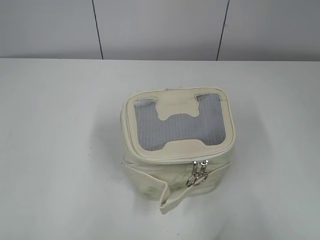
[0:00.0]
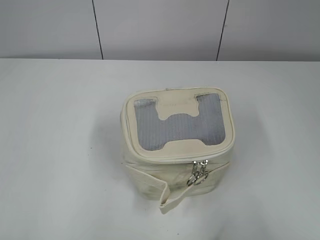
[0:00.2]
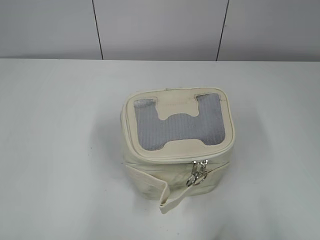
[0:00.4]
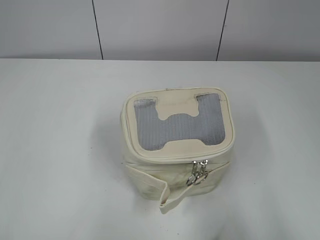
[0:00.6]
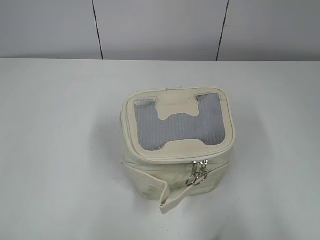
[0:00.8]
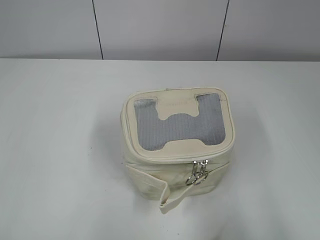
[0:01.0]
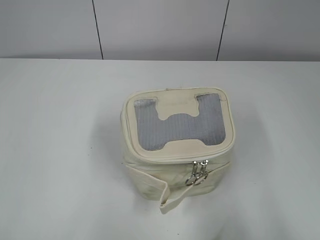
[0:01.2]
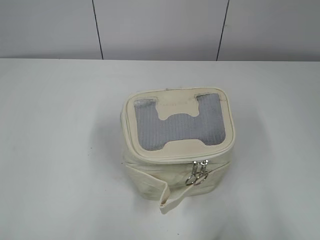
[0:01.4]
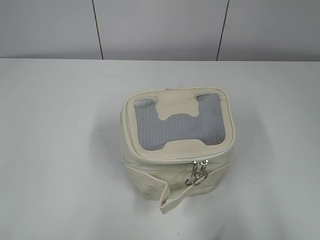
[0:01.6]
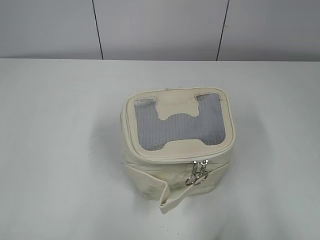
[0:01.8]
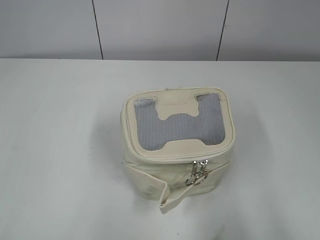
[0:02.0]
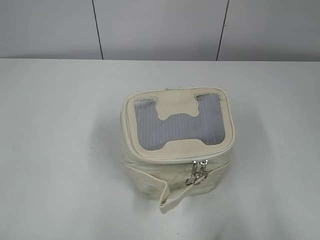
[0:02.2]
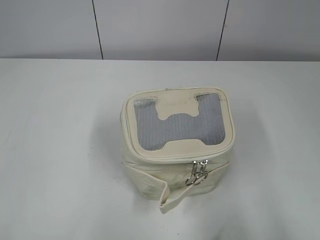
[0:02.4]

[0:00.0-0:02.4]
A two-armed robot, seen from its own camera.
0:01.2 to 0:02.4: Neither gripper changes place.

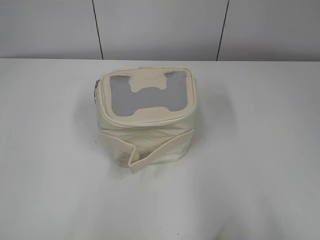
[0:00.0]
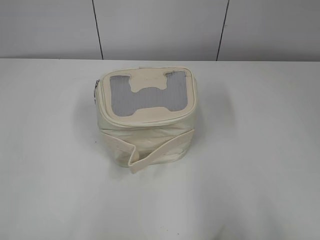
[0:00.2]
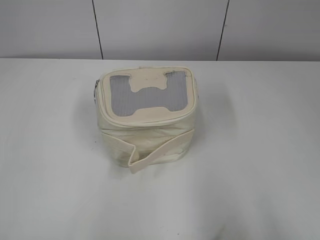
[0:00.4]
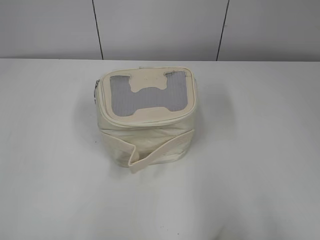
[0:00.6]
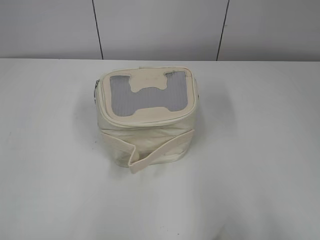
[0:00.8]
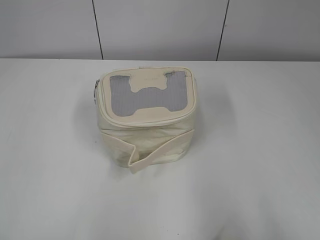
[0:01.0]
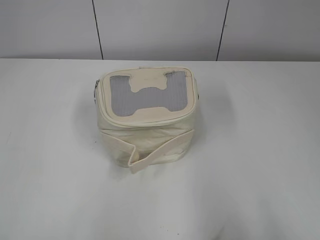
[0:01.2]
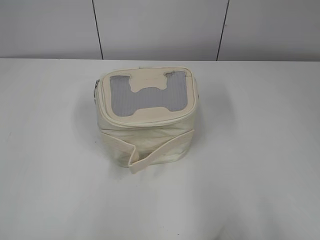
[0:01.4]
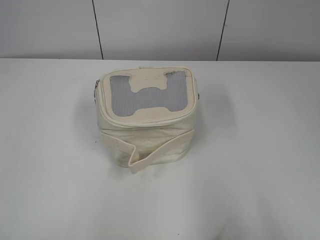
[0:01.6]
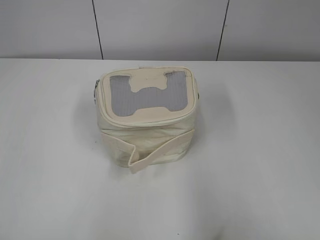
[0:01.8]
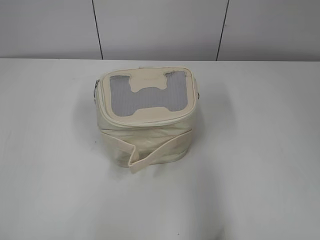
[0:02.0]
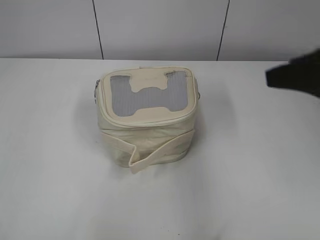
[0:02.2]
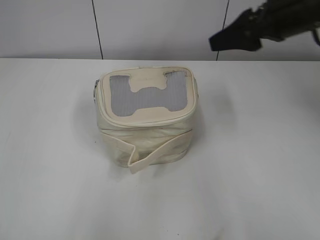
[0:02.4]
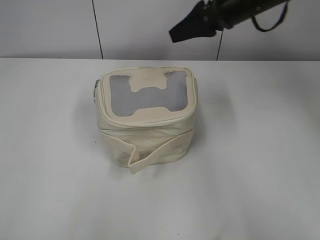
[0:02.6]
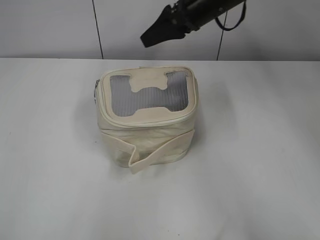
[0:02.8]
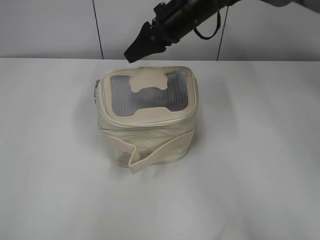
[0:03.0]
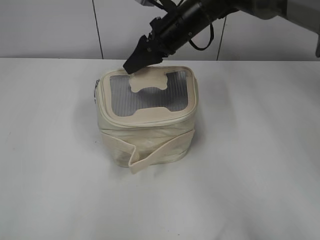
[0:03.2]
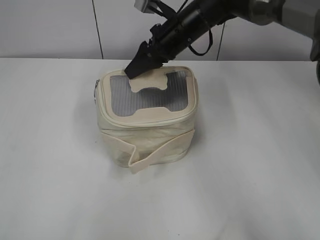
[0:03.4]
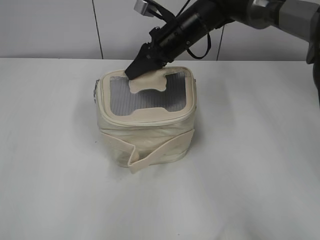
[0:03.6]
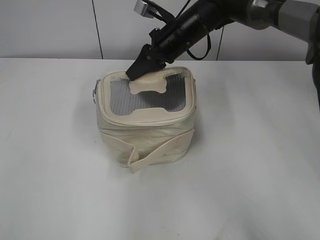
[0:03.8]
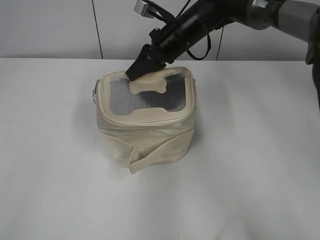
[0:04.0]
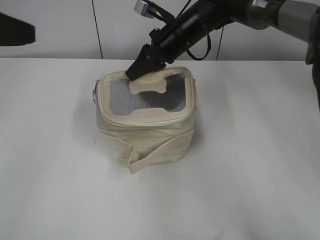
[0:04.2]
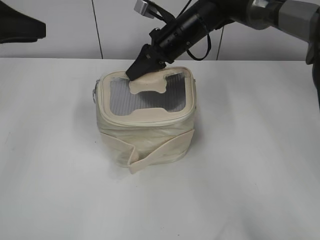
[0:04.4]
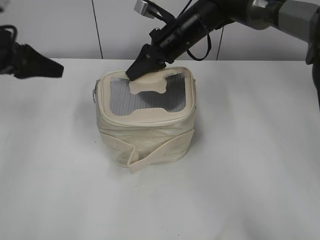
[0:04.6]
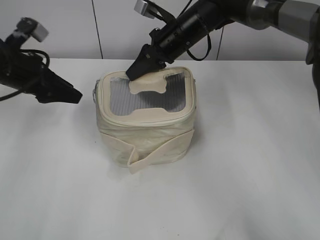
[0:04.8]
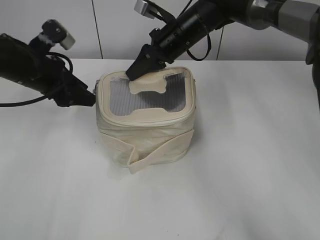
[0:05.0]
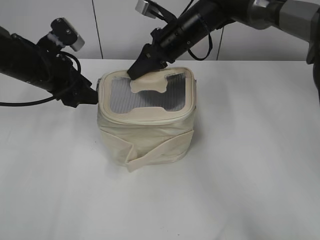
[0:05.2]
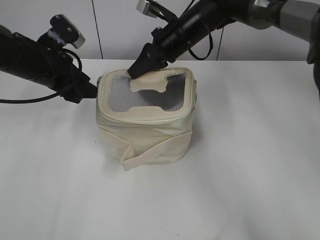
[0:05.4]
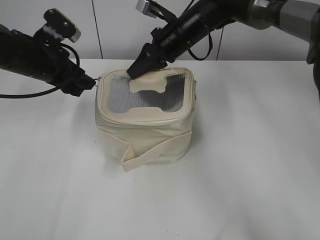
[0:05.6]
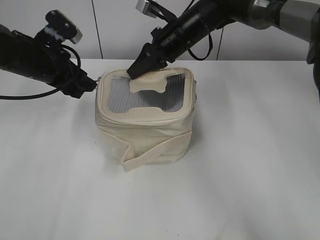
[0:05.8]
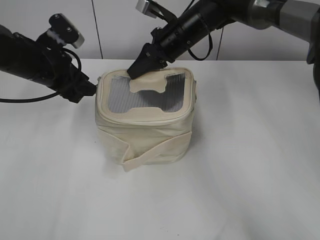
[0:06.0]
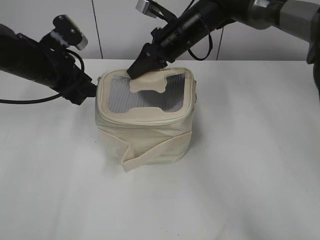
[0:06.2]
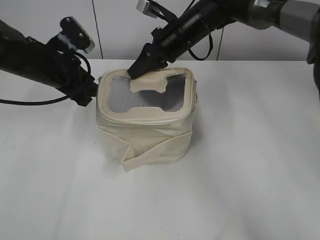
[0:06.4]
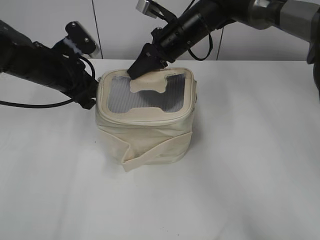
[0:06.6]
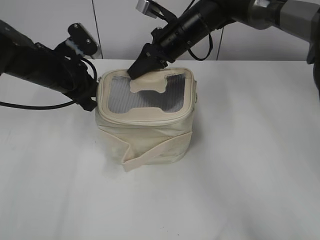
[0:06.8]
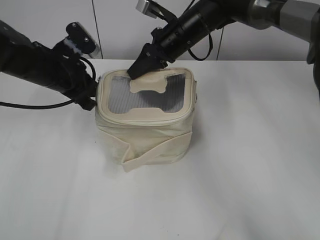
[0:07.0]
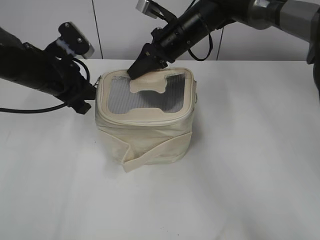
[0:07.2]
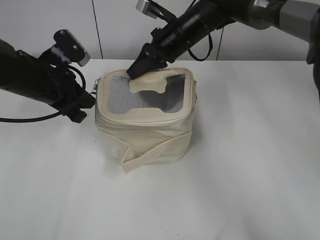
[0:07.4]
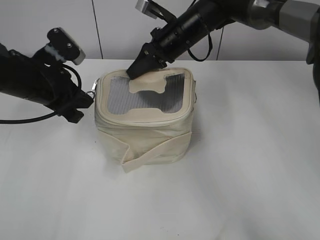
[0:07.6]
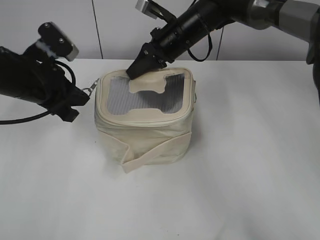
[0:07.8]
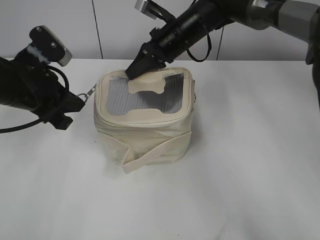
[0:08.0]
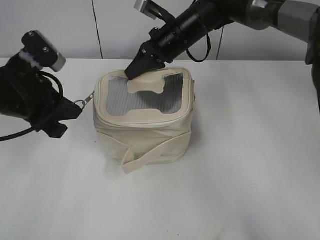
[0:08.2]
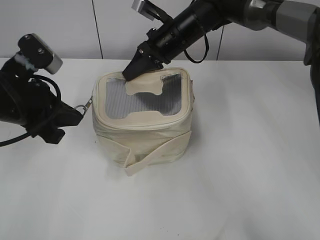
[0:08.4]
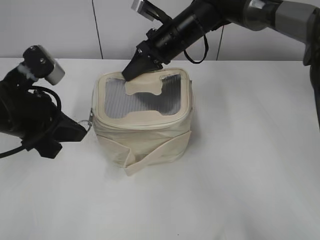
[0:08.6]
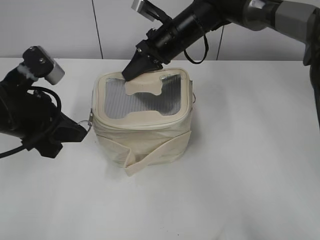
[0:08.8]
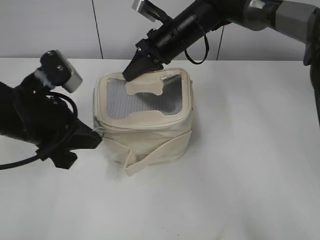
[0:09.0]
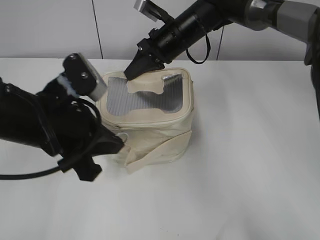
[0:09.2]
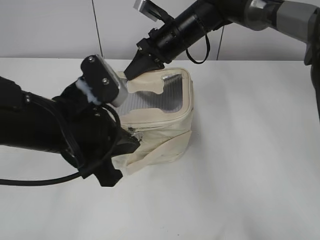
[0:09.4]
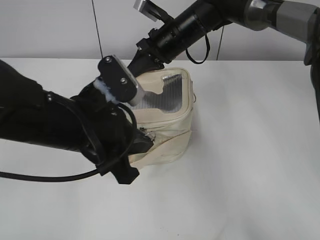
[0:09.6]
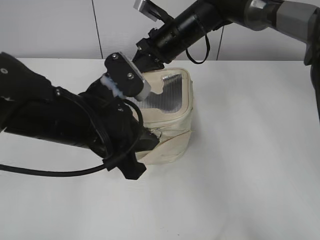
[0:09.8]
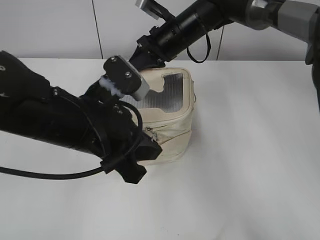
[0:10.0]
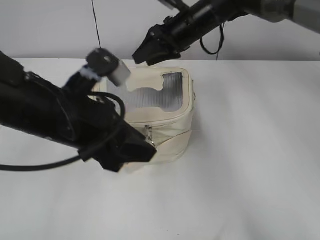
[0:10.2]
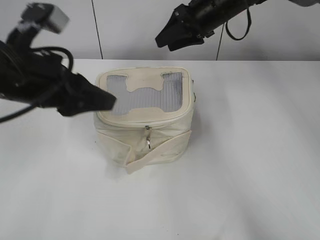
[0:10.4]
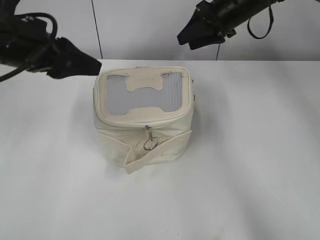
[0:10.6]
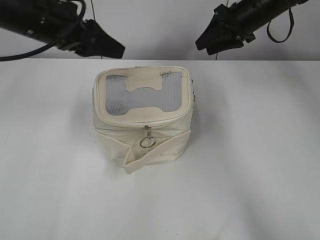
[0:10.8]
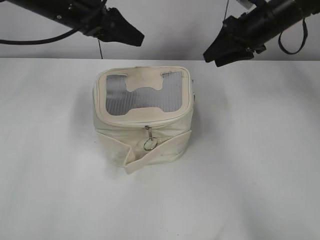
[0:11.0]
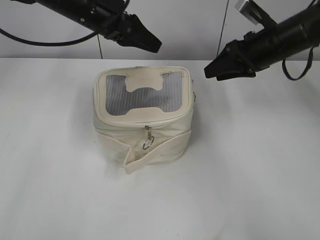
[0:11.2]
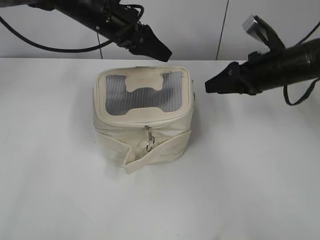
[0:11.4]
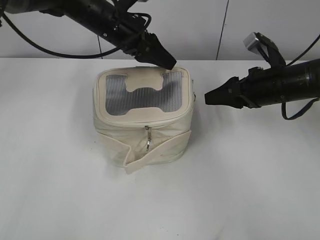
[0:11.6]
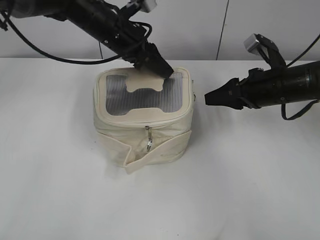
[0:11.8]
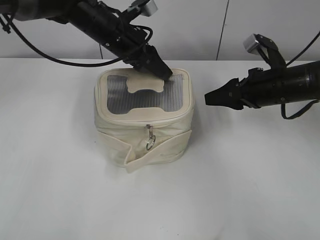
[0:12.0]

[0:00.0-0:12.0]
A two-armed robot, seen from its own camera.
Step, 0:00.0 to 0:10.0: Zip up the bag with your left hand.
0:01.6 to 0:03.0: The right gripper is displaced forward and to the left by some 50 cm.
0:03.0 to 0:04.4: The right gripper is displaced downward by roughly 5 cm, and closes, while the left gripper heads forward, covering approximately 30 cm.
0:04.4 to 0:06.0: The left gripper is displaced downward, to the right and forward by about 15 cm.
0:06.0 to 0:07.6: The left gripper closes.
0:07.6 to 0:09.0: The left gripper travels backward by roughly 10 cm.
0:09.0 to 0:10.4: The right gripper moves to the right, approximately 10 cm, and opens up. The left gripper travels upward by approximately 5 cm, moves approximately 10 cm to the right and comes back, and opens its fingers.
0:10.4 to 0:12.0: The left gripper goes some 20 cm forward and to the right, while the right gripper travels backward, to the right and downward by some 20 cm.

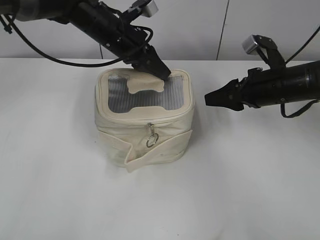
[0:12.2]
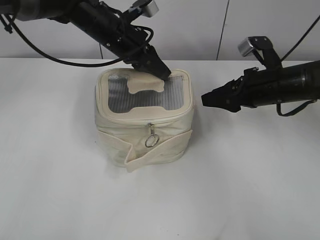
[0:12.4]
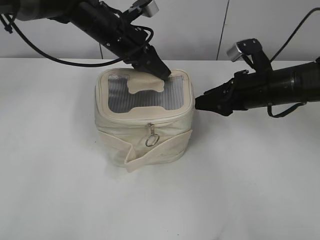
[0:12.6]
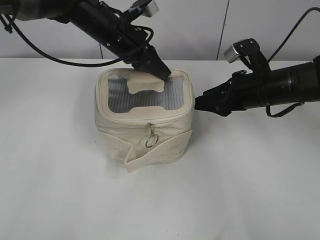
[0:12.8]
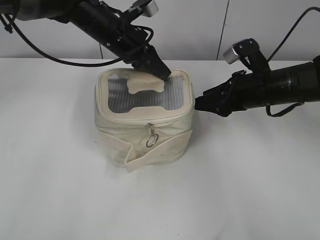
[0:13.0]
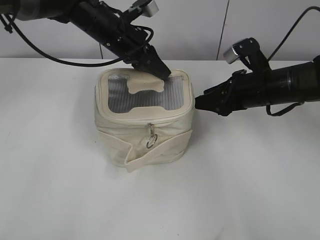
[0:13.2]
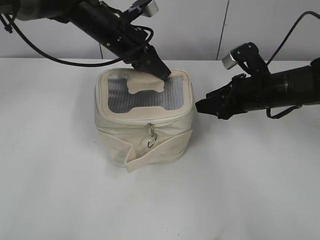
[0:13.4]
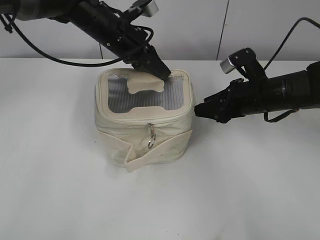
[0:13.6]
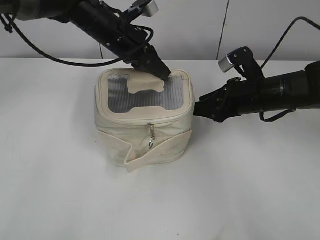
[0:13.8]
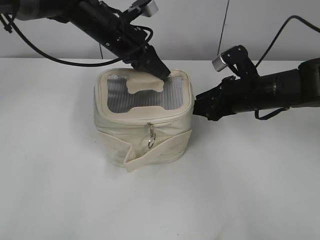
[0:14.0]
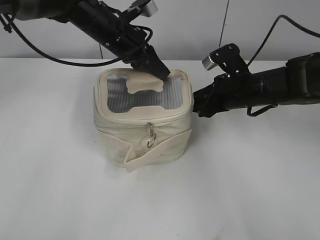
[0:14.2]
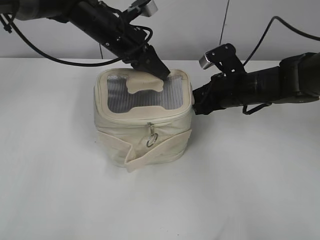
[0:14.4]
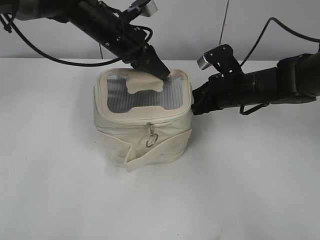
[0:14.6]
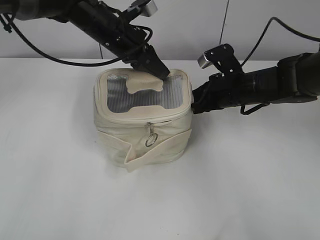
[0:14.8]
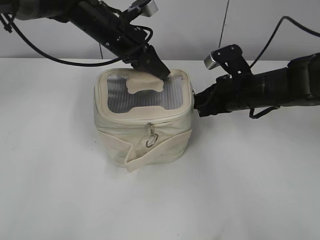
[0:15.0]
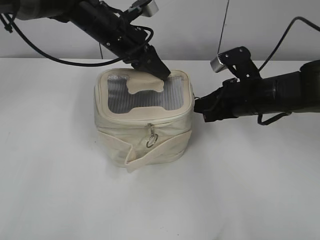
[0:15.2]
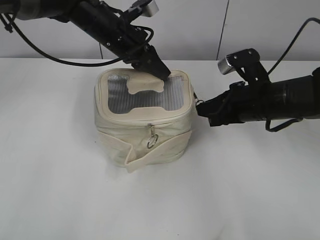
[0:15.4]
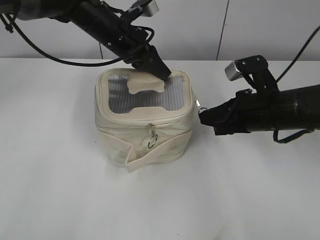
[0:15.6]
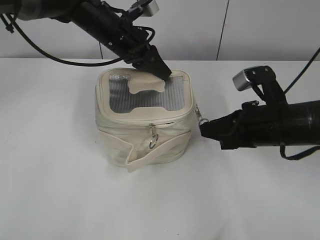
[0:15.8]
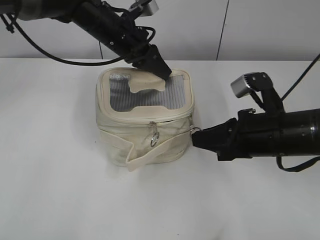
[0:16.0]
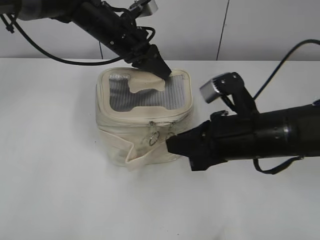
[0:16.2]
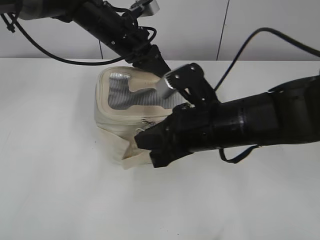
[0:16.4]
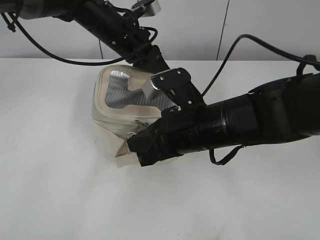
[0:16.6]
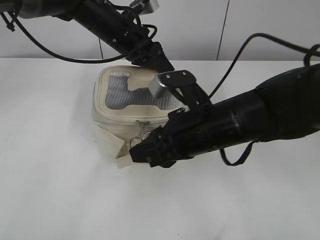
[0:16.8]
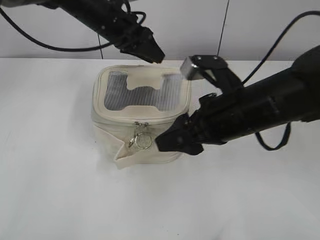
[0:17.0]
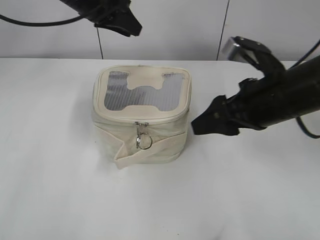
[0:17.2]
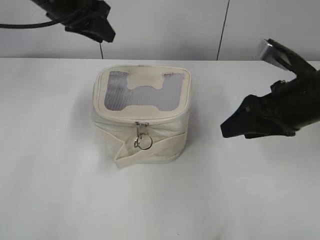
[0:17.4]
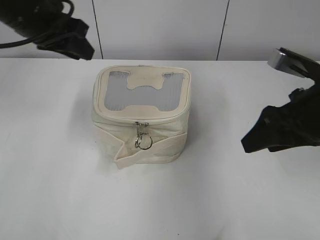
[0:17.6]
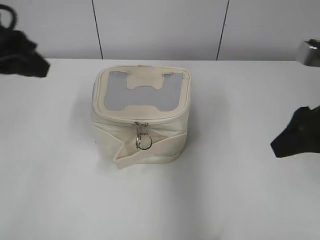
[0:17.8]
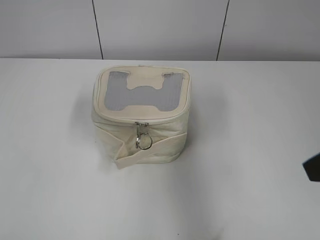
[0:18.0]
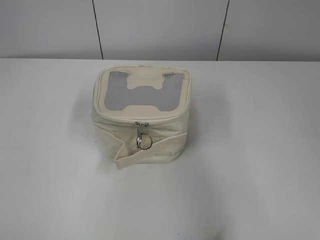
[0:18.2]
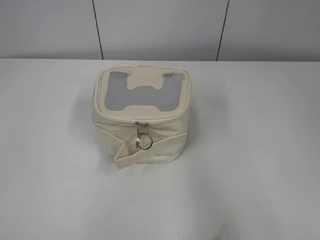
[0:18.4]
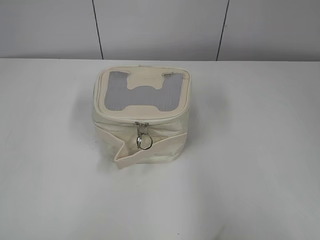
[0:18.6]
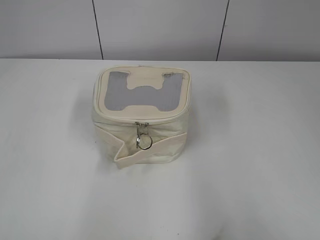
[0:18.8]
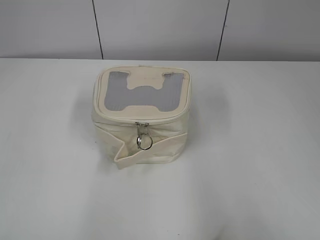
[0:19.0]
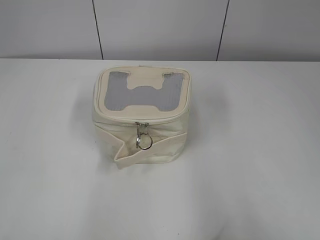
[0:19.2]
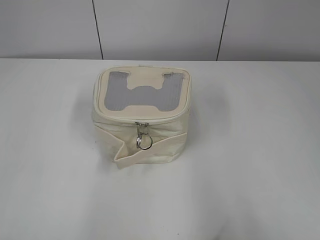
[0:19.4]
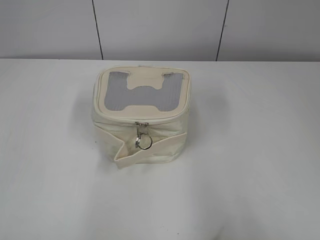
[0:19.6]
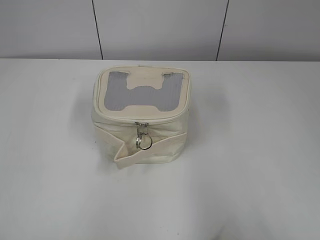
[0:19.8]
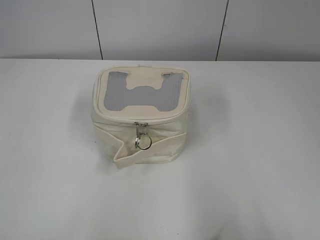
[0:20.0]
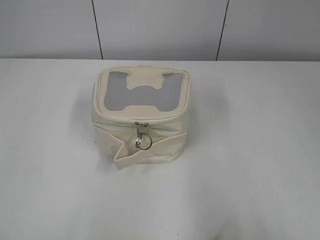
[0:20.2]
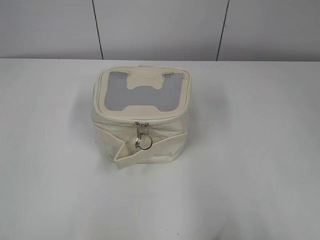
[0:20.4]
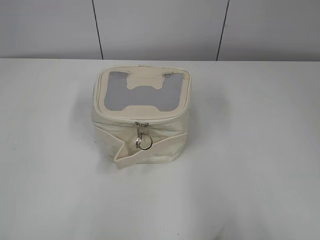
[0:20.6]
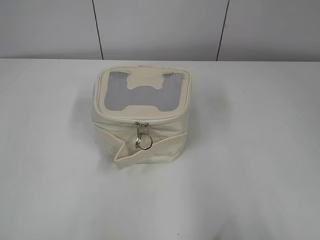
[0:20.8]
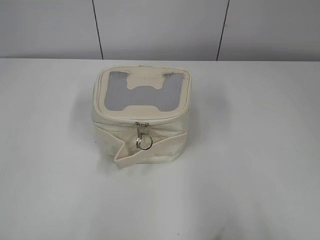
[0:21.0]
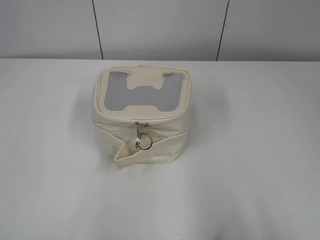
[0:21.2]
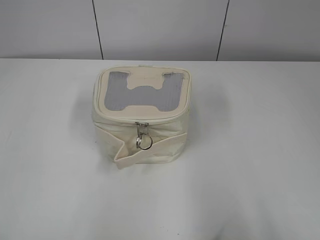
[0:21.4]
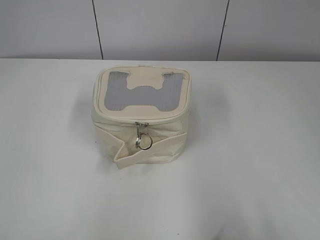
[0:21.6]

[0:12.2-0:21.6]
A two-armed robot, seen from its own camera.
Step, 0:12.2 to 0:16.8: Zip up the bag with your right hand.
Step, 0:17.0 to 0:17.2: Hold the bag with your left hand.
0:12.2 to 0:13.8: There are only small adjustments of the grippers.
0:13.8 to 0:15.4: The right gripper closes.
0:15.4 to 0:17.0: The right gripper moves to the left and backward, roughly 10 cm, and opens up. The left gripper opens up.
0:17.0 to 0:18.4: The left gripper heads backward and to the left, covering some 50 cm. Meanwhile the right gripper is displaced backward, to the right and upward by approximately 25 cm.
0:20.0 to 0:21.6: The two grippers keep their place.
